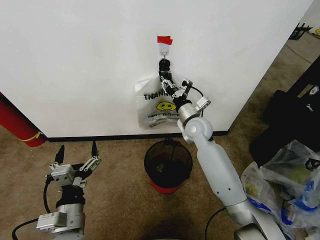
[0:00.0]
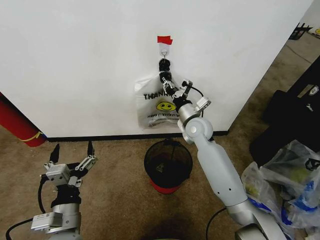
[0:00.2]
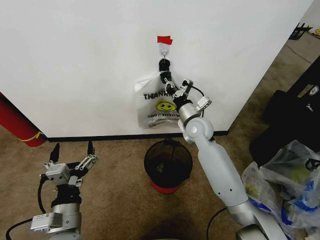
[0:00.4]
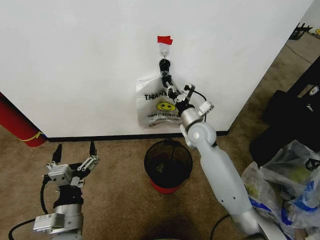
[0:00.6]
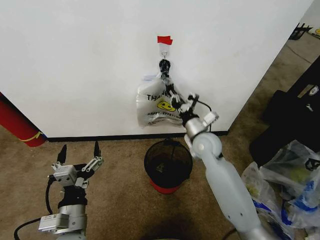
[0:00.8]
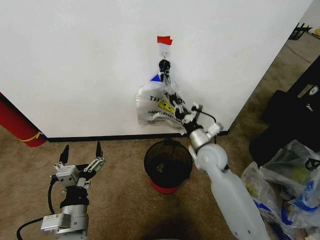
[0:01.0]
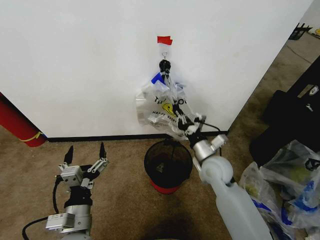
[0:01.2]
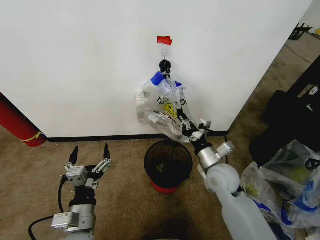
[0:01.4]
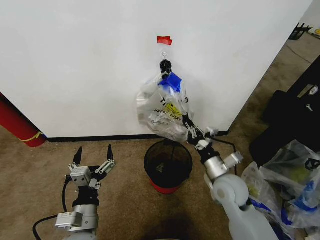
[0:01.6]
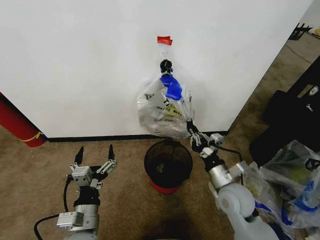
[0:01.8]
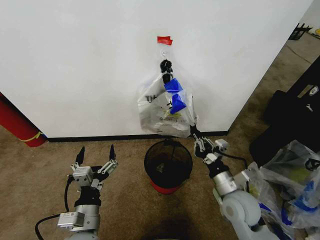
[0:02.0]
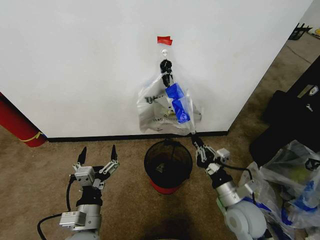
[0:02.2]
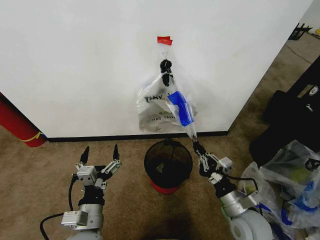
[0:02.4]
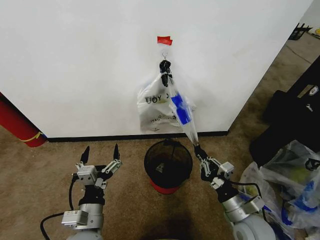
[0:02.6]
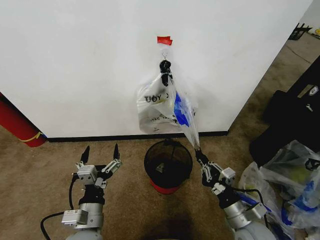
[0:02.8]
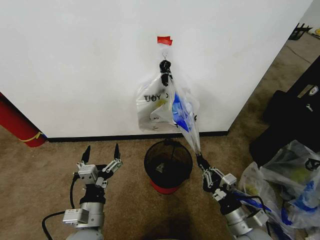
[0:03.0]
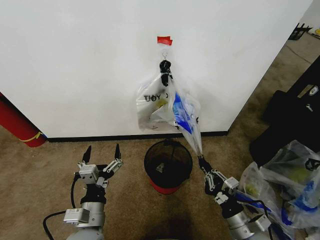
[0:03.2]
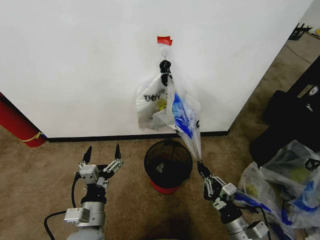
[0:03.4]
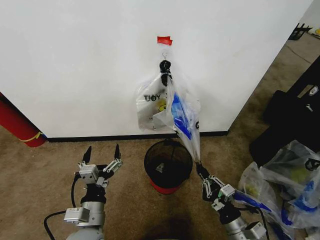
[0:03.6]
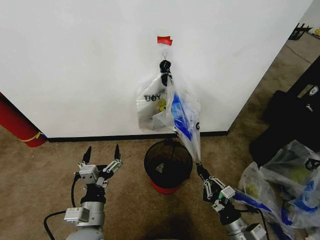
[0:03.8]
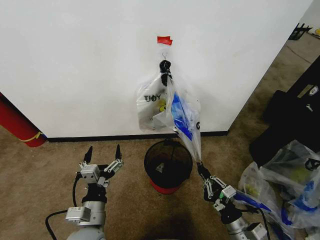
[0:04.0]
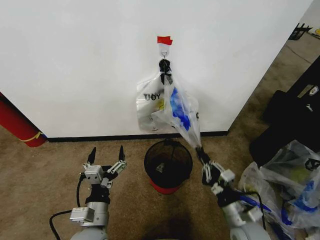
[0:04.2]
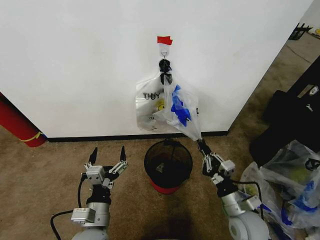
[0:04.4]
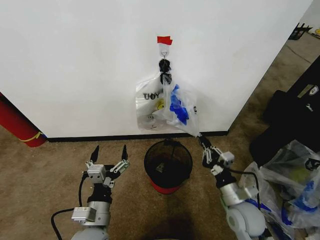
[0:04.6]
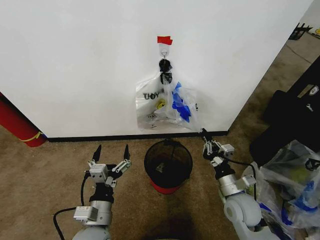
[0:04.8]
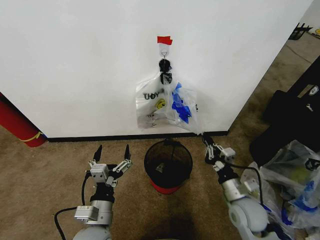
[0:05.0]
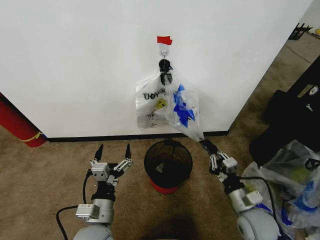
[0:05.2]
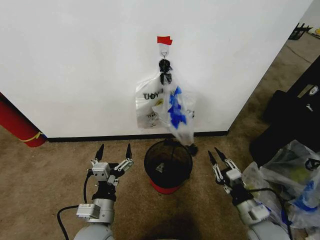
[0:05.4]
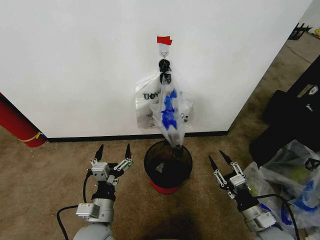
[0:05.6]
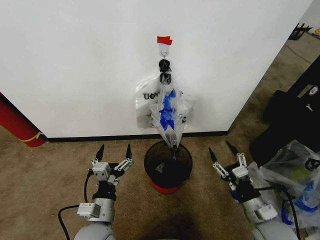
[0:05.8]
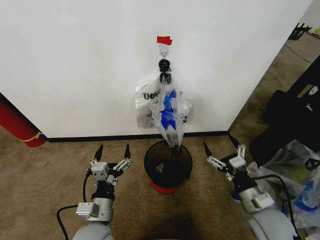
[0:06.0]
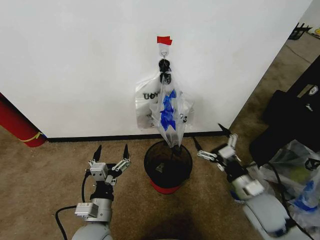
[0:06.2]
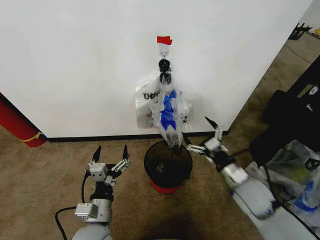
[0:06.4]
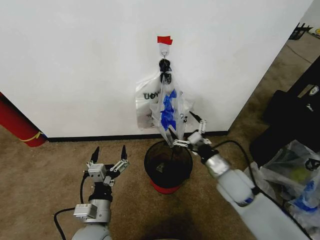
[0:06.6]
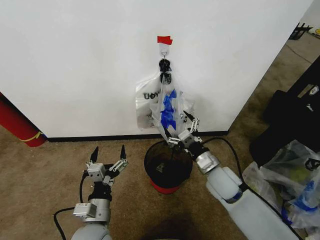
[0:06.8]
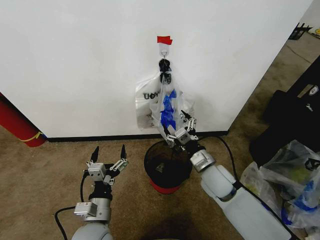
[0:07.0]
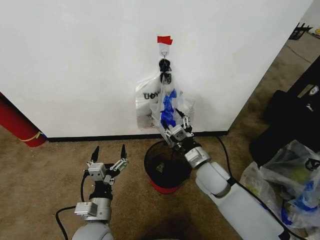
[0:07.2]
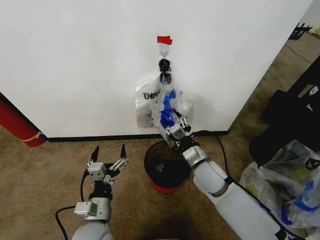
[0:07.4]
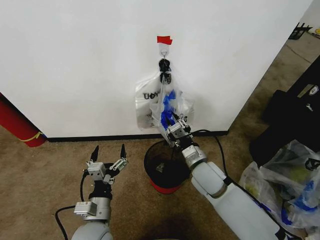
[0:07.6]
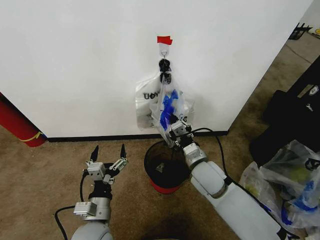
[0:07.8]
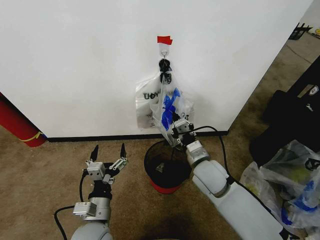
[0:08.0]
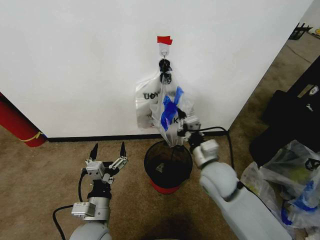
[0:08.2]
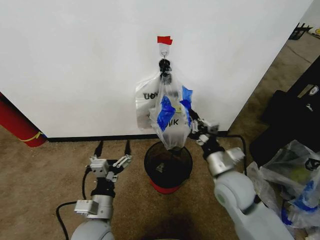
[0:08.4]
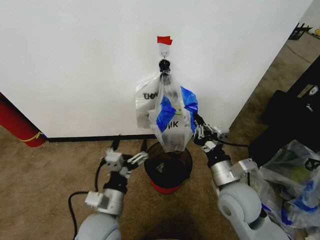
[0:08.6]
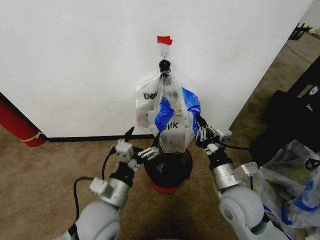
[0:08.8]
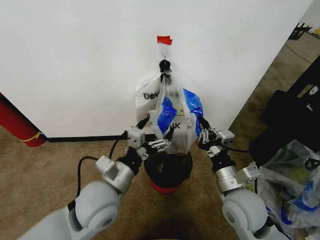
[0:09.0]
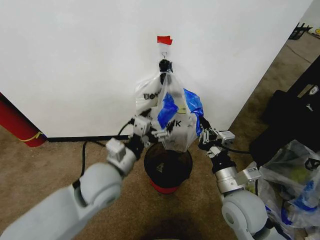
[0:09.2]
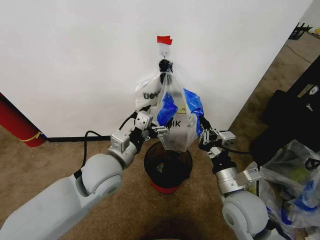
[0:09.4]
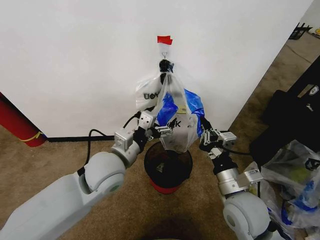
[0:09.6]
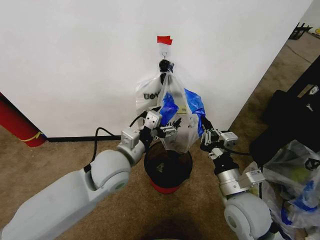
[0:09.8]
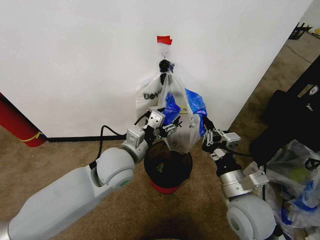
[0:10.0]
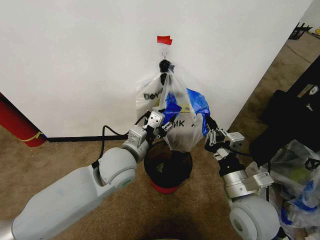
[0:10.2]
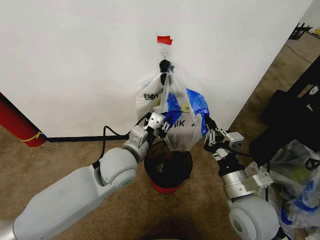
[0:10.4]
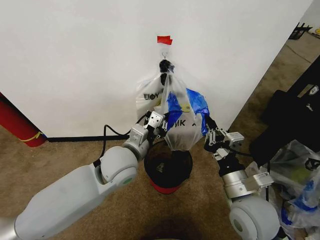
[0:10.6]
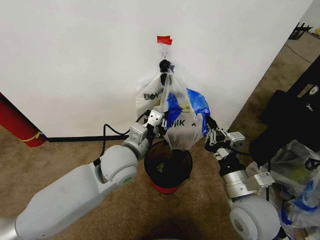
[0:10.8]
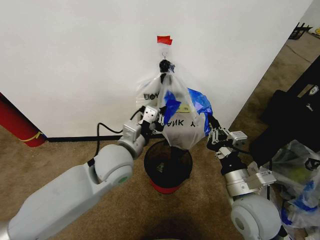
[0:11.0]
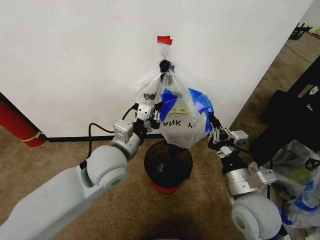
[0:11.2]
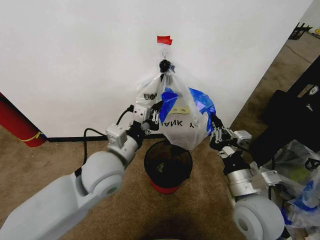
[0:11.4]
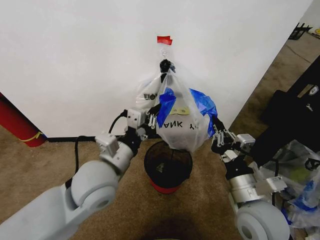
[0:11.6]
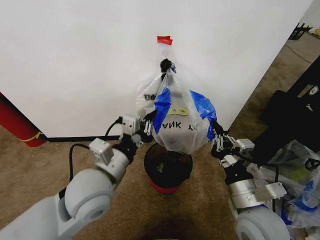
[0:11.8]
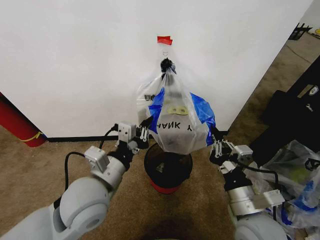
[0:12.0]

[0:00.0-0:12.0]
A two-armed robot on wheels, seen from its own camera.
Task of the whole recording: Pick up the garbage bag from the wall and place it over the trash bin.
0:00.0 to 0:01.6: The right gripper is displaced backward and downward by about 20 cm, and closes up.
0:01.6 to 0:03.0: The right gripper goes some 15 cm backward and downward.
0:03.0 to 0:04.4: The grippers make only small movements.
0:04.4 to 0:06.0: The right gripper moves roughly 5 cm backward and comes back, and opens its fingers.
0:06.0 to 0:07.6: The right gripper moves to the left and forward, some 20 cm, and closes up.
0:07.6 to 0:09.0: The right gripper shifts some 10 cm backward and to the right, while the left gripper shifts about 15 cm upward and forward.
0:09.0 to 0:10.4: The left gripper heads forward, covering some 10 cm, and closes.
0:10.4 to 0:12.0: The left gripper shifts roughly 10 cm backward.

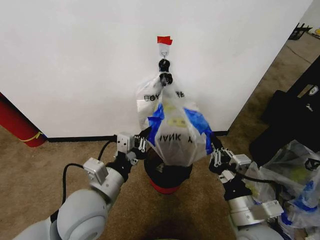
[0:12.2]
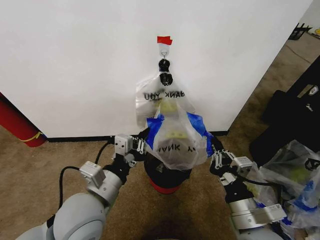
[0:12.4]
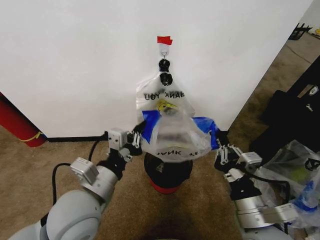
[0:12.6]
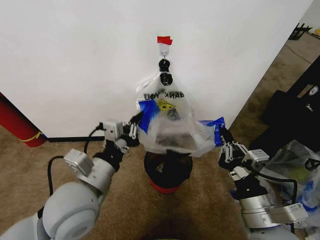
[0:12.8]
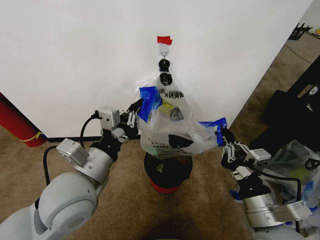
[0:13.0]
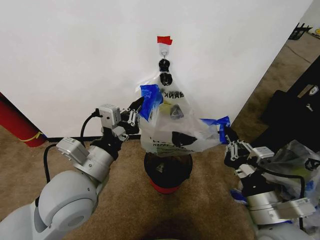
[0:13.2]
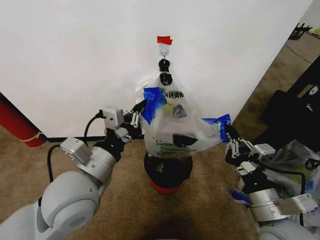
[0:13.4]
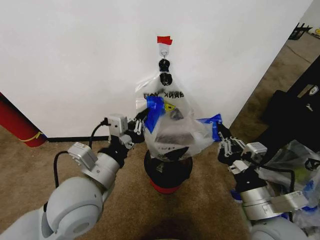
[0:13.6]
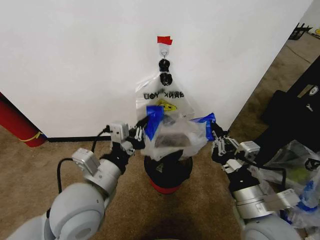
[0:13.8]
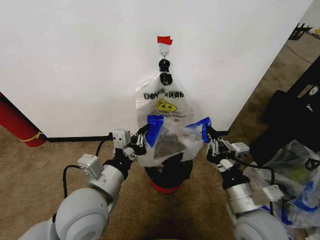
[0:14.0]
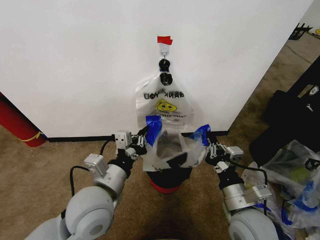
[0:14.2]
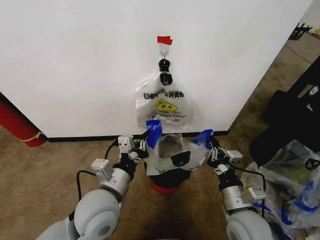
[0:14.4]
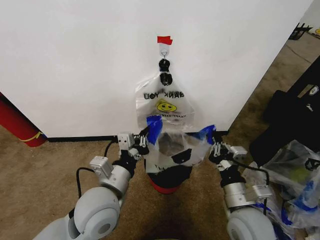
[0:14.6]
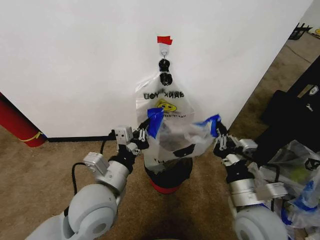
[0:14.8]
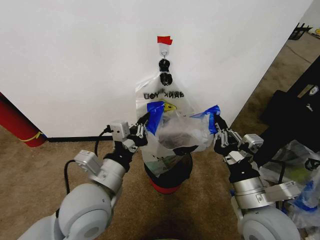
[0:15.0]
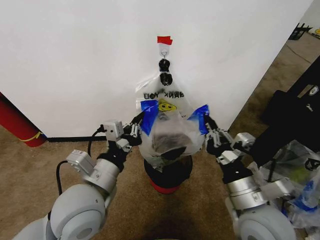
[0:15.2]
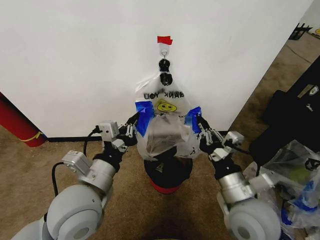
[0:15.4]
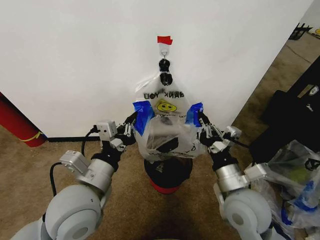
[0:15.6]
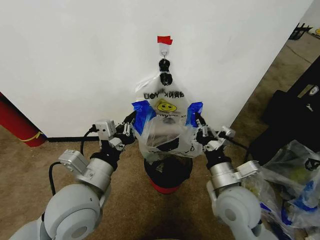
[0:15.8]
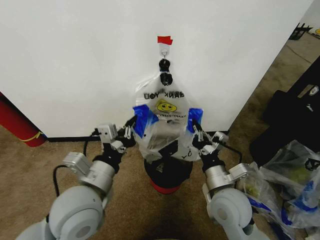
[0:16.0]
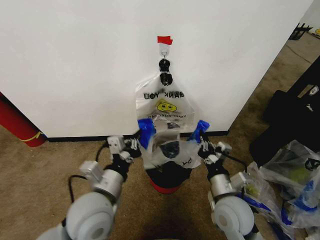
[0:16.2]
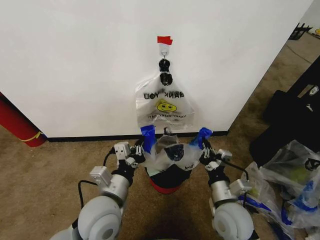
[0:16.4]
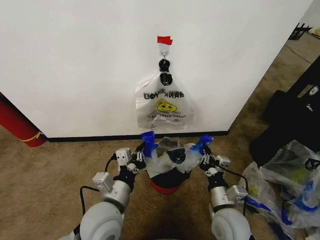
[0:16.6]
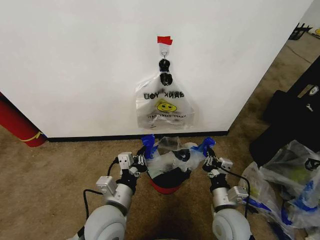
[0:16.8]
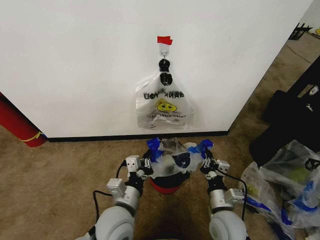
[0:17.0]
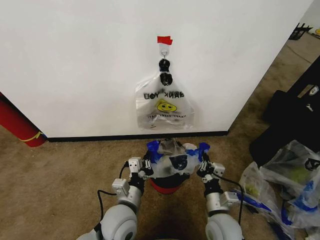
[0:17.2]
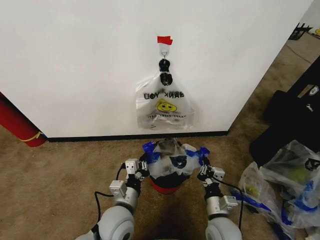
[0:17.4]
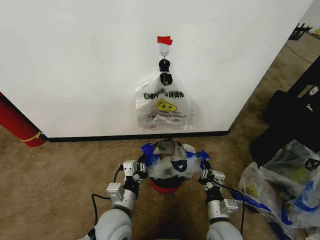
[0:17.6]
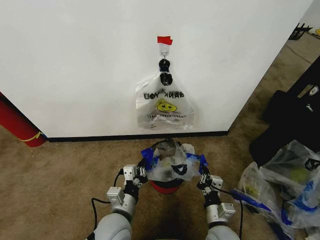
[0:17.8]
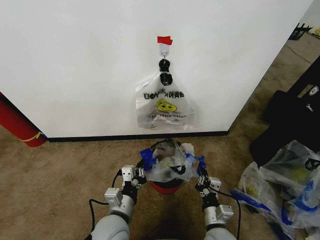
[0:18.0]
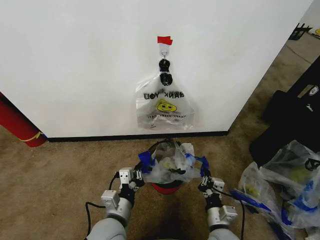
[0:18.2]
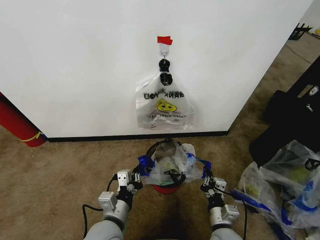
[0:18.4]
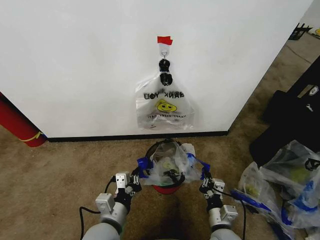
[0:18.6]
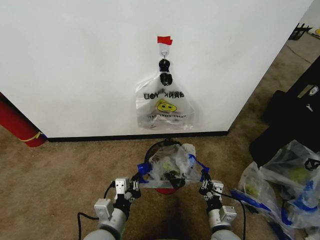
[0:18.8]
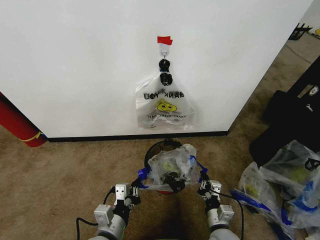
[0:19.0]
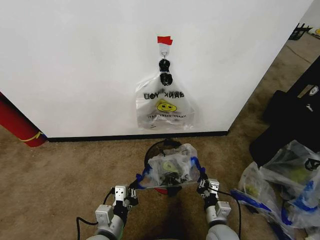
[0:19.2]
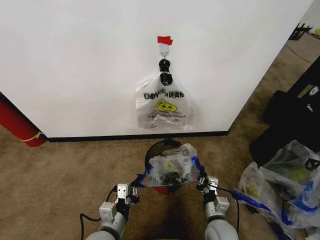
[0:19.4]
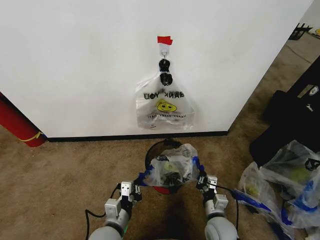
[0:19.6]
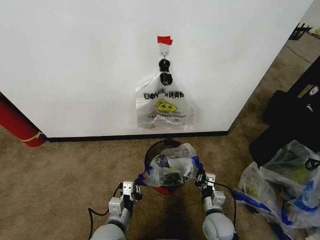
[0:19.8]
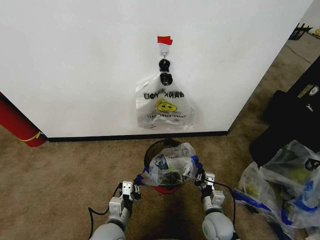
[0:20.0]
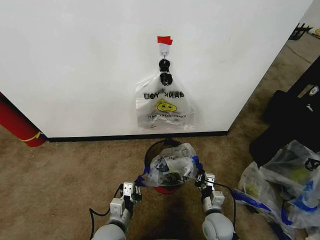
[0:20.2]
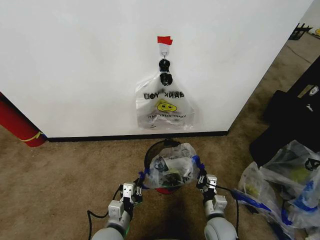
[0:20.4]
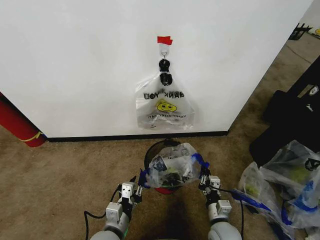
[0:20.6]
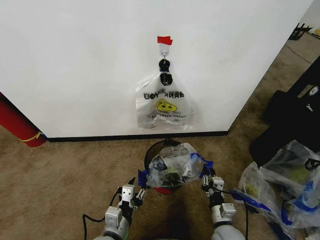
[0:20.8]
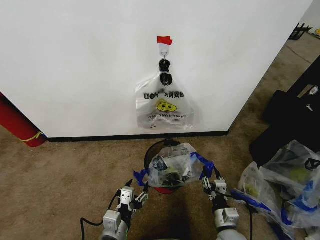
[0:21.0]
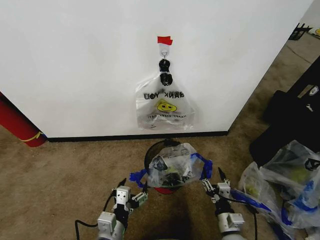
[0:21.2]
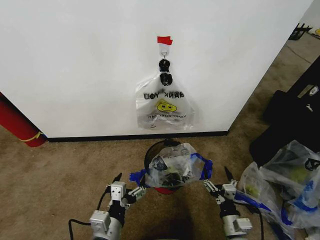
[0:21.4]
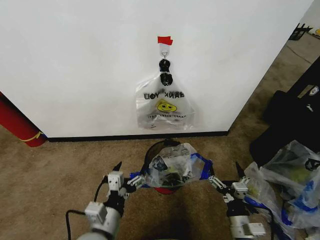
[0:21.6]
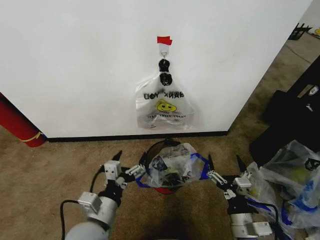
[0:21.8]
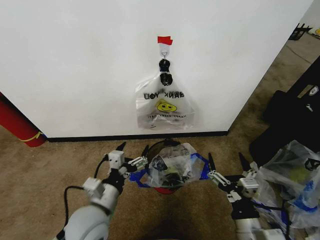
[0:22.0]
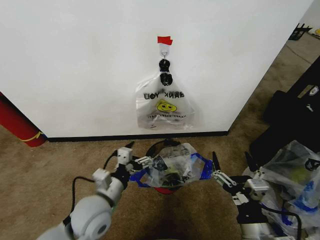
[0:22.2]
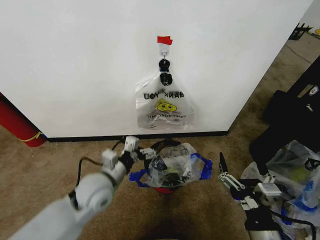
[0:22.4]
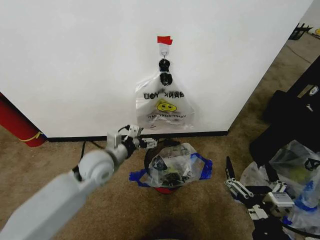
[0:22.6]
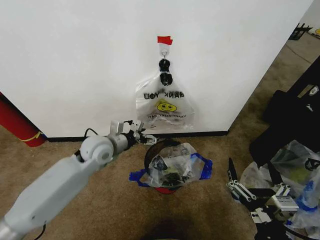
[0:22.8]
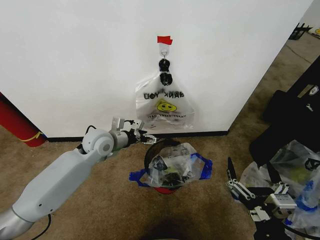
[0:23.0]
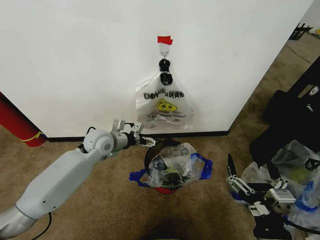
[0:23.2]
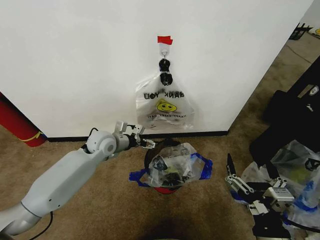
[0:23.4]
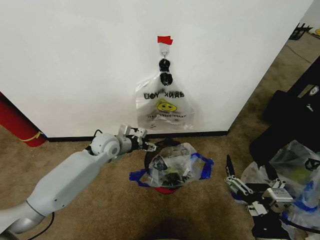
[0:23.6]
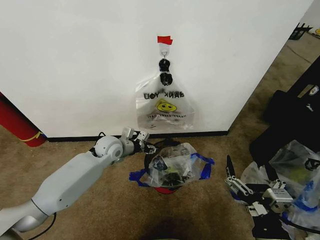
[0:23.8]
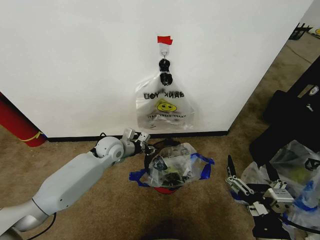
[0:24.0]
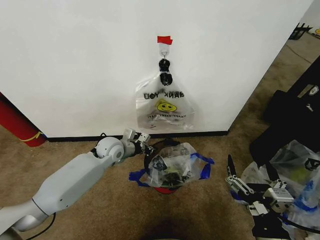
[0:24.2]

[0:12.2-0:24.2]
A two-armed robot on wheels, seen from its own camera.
Task of the whole recording: Pick up the garbage bag from the wall and place it over the trash bin.
0:12.2 to 0:13.8: The grippers make only small movements.
0:13.8 to 0:15.2: The right gripper moves roughly 10 cm downward and comes back.
0:15.2 to 0:16.6: The grippers both shift downward by about 10 cm.
0:16.6 to 0:18.2: The two grippers go approximately 5 cm downward.
0:18.2 to 0:19.8: The left gripper shifts some 5 cm downward. The right gripper moves forward, roughly 5 cm.
0:19.8 to 0:21.2: Both grippers travel together backward, approximately 5 cm. The left gripper opens its fingers, while the right gripper opens its fingers.
0:21.2 to 0:22.6: The left gripper goes about 25 cm forward and upward. The right gripper travels upward and backward by about 20 cm.
0:22.6 to 0:24.2: The left gripper goes approximately 10 cm forward and downward, and closes its fingers.
